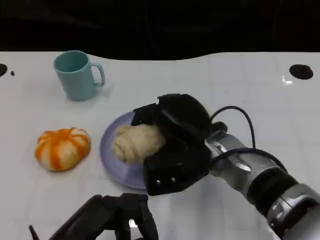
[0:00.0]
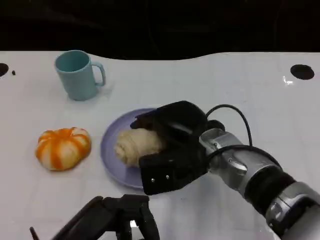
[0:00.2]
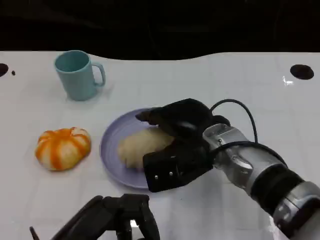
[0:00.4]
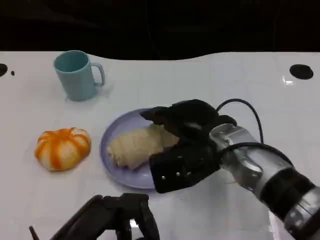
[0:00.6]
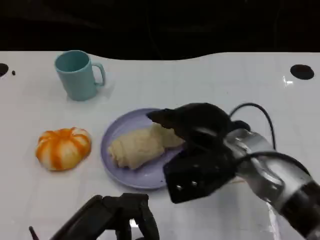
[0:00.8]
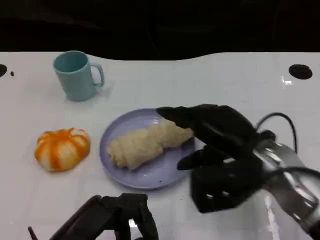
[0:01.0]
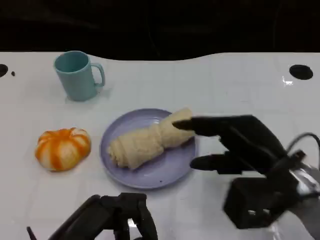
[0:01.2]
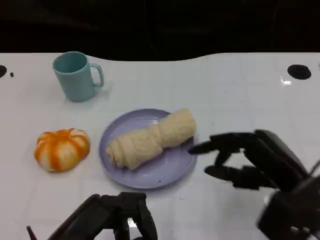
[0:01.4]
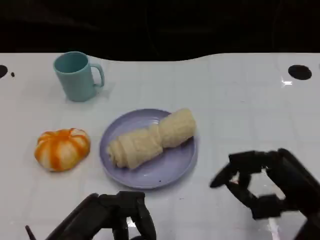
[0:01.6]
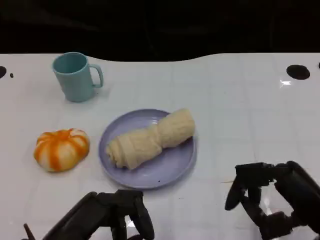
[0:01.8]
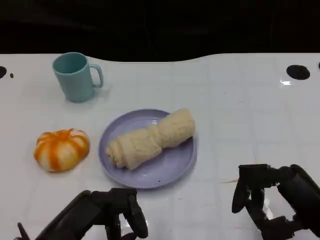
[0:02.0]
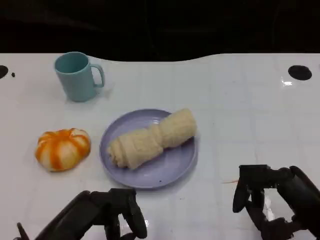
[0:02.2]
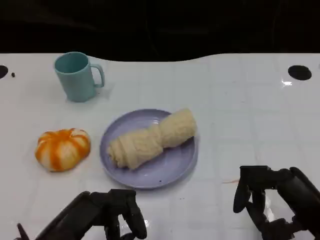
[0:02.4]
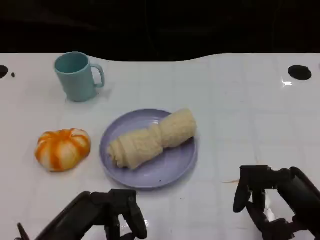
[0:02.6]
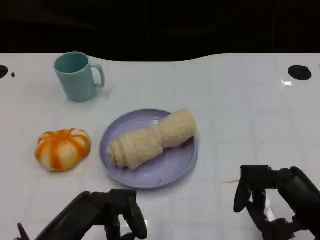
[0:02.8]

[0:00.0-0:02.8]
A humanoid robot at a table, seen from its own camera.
Task of the whole recording: Grasp the towel on the left side of the plate with the left hand and place it into the plate.
0:00.0 to 0:01.4: The right hand moves to the right and backward, about 15 cm.
0:01.4 to 0:02.8: The right hand changes place by about 5 cm.
